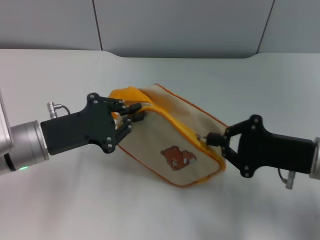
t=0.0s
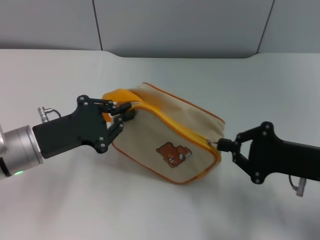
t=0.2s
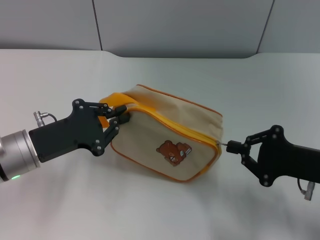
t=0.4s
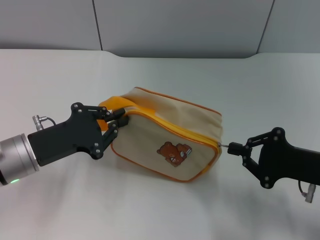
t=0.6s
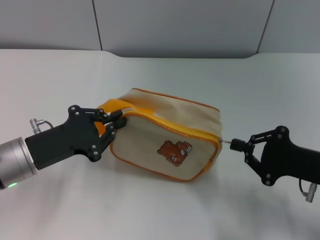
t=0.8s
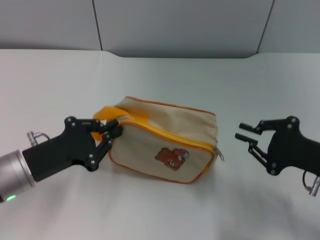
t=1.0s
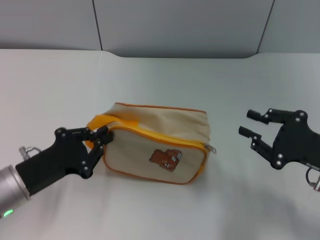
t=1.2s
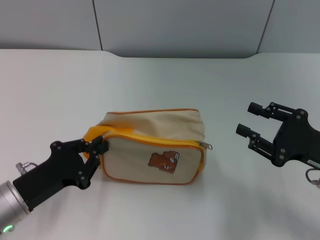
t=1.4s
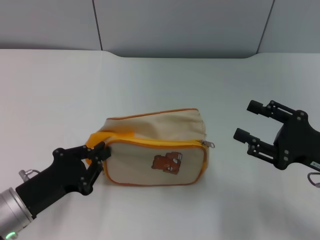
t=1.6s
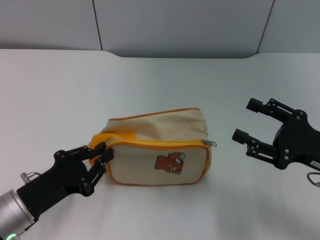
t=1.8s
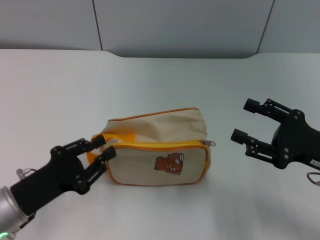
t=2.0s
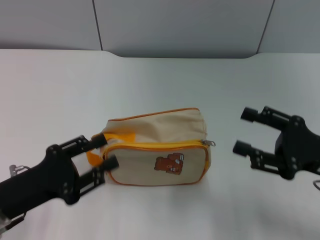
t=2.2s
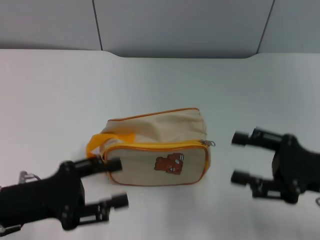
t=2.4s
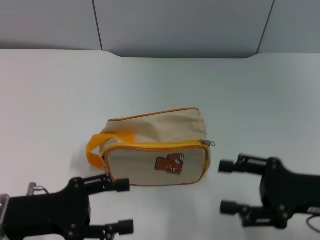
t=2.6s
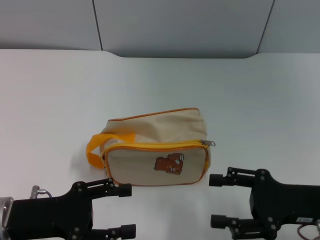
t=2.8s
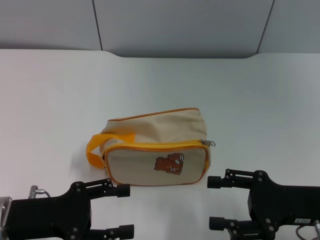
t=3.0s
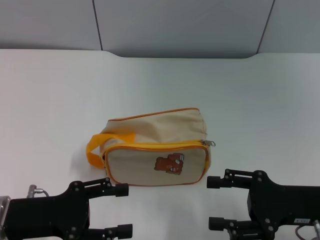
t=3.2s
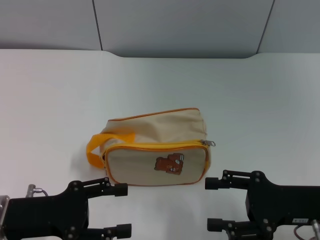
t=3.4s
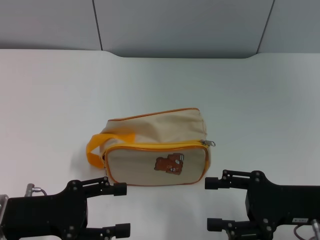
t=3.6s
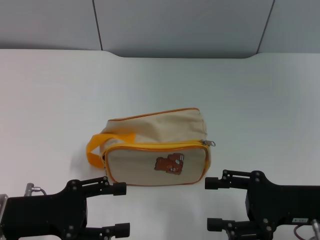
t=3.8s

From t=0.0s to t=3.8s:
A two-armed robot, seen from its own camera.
Step, from t=1.2s to t=2.2s: Place the bag on the table with left gripper.
From t=0.0s to t=1.2s: The left gripper goes approximately 5 cm backward.
From t=1.2s to t=2.6s: The right gripper opens up. Meanwhile the left gripper opens.
From t=2.6s to t=3.8s: Both grippers stay about where they are.

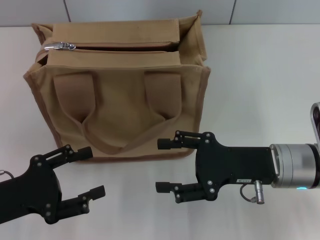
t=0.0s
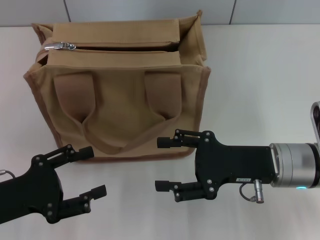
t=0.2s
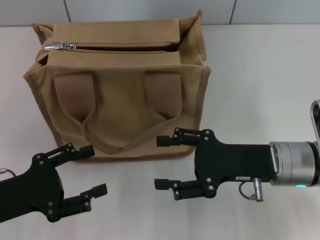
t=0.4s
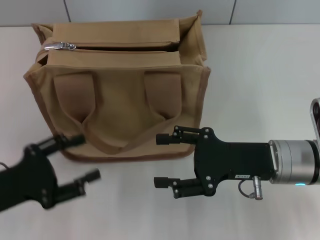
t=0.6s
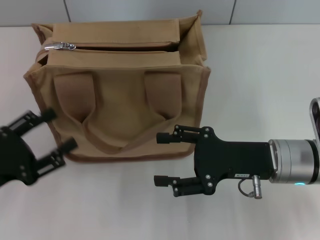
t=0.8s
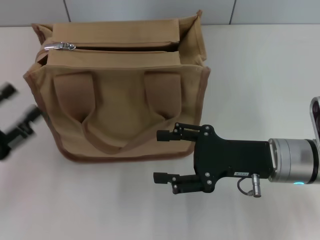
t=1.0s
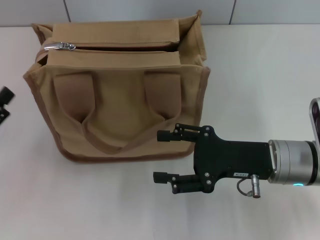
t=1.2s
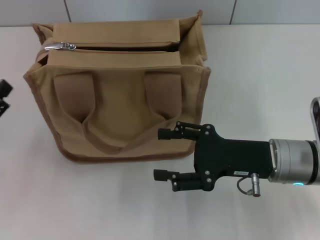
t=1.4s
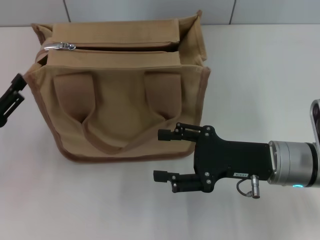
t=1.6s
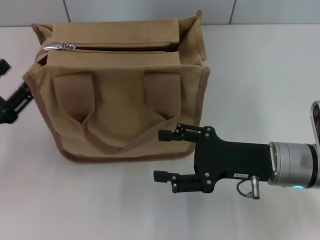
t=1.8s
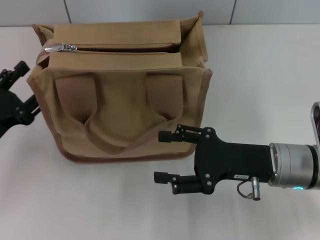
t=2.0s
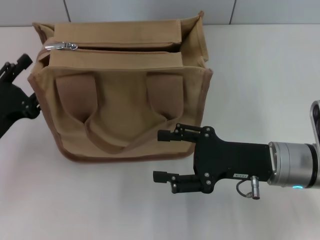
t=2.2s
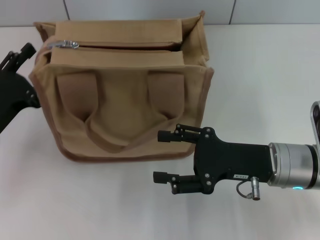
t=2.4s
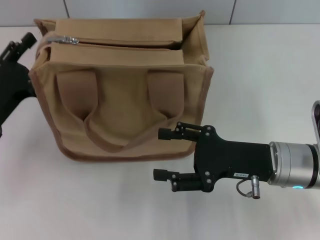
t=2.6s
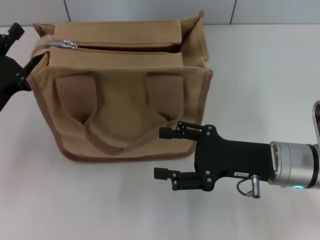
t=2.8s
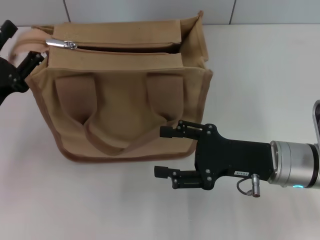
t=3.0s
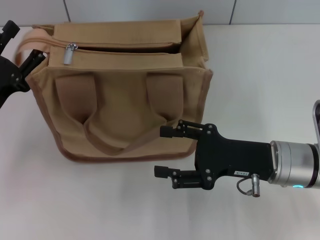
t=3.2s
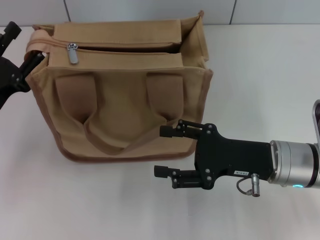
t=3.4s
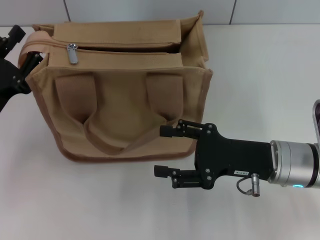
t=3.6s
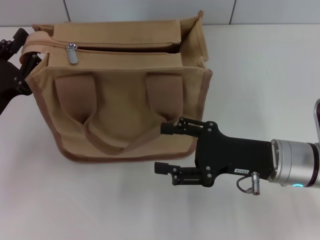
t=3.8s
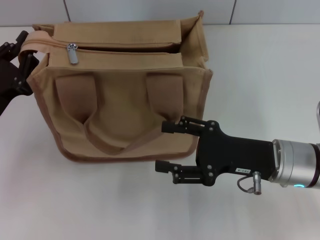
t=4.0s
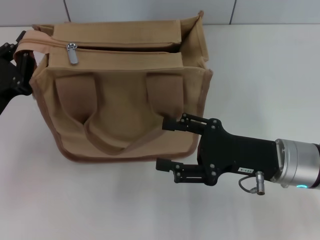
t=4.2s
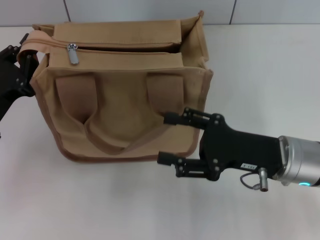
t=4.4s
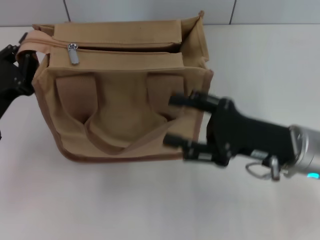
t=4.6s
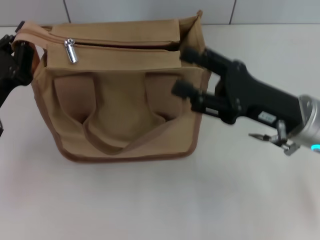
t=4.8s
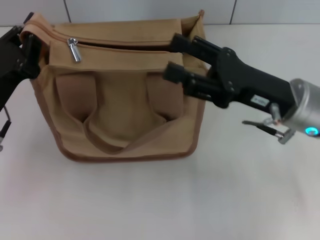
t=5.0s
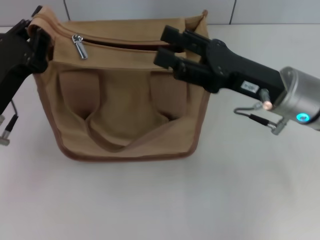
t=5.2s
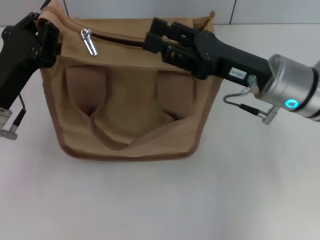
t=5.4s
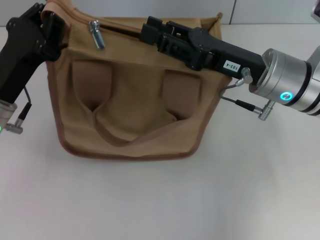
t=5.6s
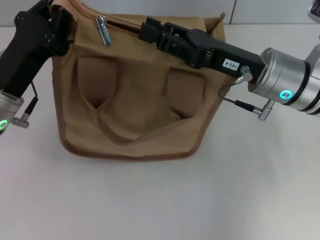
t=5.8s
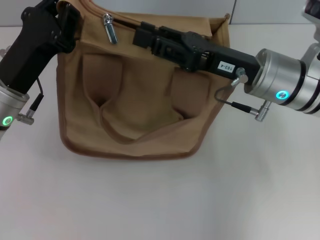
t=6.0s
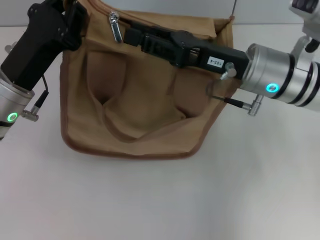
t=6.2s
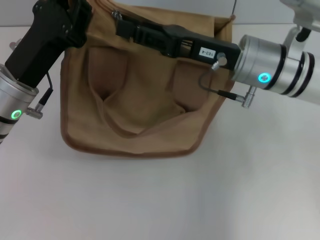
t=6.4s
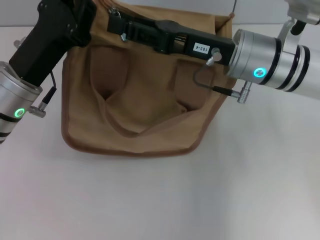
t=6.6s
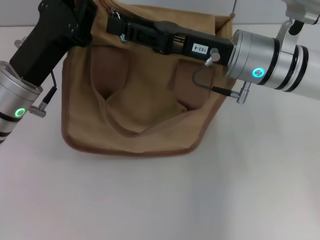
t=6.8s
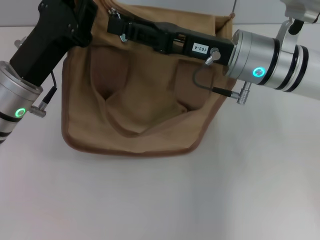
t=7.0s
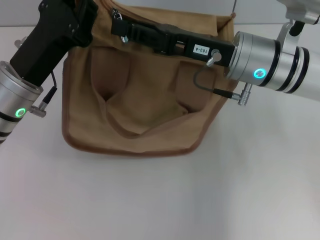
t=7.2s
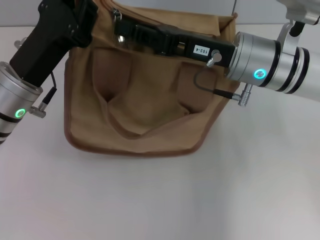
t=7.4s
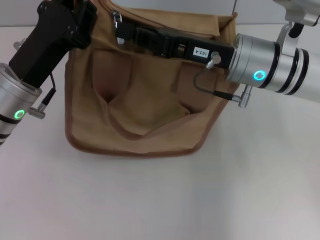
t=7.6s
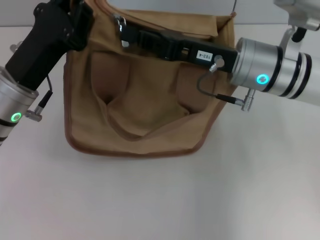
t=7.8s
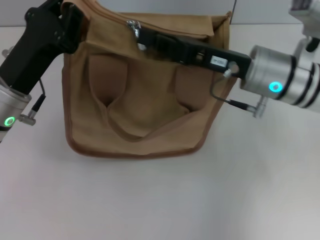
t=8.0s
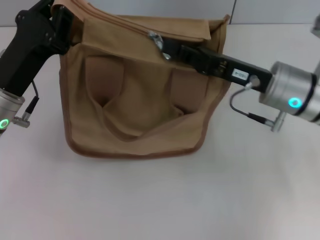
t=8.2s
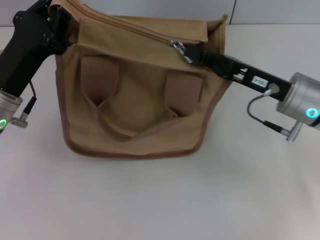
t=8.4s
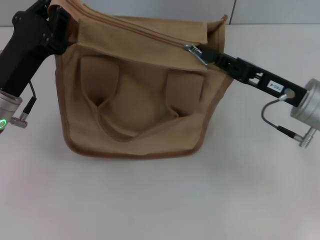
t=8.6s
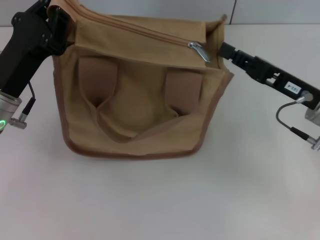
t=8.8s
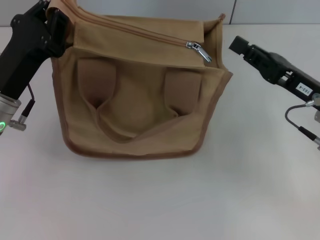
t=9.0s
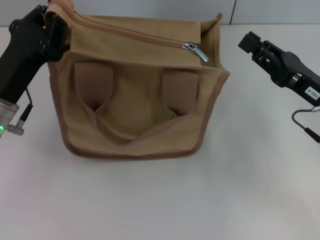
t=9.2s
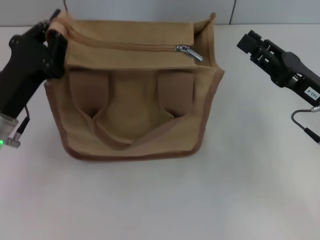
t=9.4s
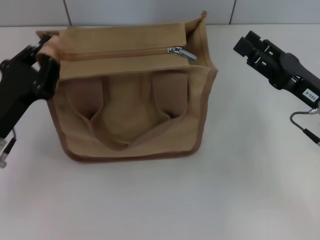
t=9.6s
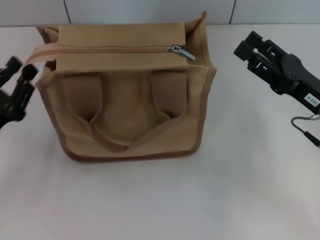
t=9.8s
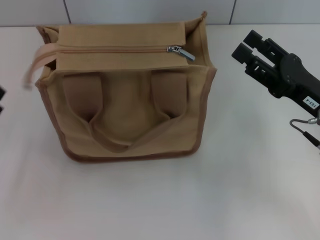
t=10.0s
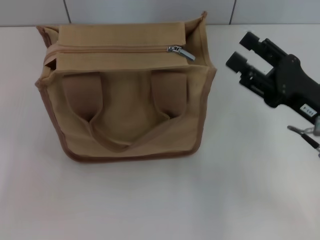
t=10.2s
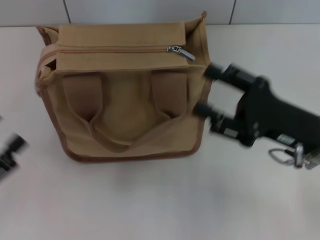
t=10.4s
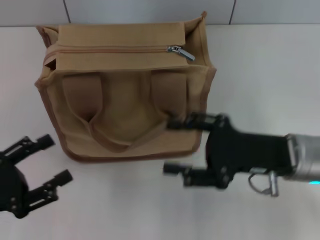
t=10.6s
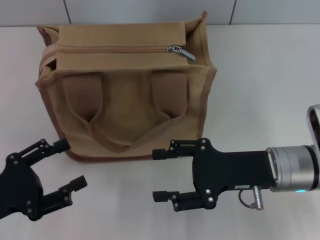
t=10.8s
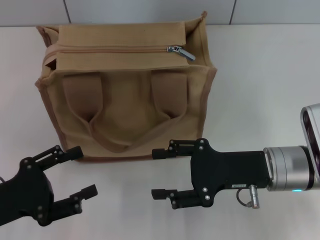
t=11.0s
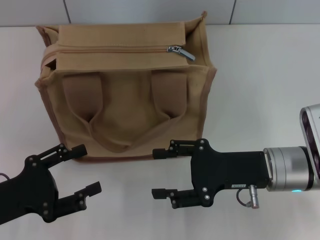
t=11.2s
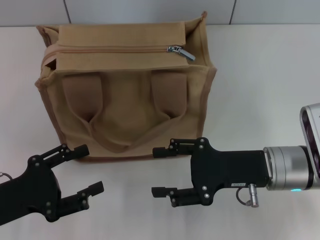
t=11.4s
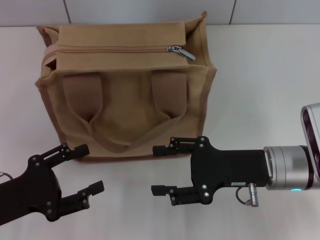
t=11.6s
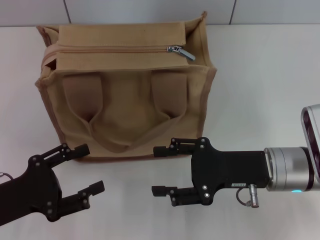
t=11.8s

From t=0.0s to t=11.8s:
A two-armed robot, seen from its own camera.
Step, from t=0.0s to t=8.6s: Pull up the zipper with your right hand.
Step, from t=8.8s to t=9.8s: Grab the zipper with your left hand.
From t=1.4s to t=3.0s: The left gripper is displaced forward by about 5 cm.
From t=3.0s to t=4.4s: The left gripper closes.
From t=4.4s to t=6.0s: The right gripper shifts approximately 10 cm forward and upward. The left gripper heads to the right, covering some 5 cm.
From t=7.4s to t=8.8s: The right gripper goes some 15 cm to the right and backward.
From t=8.8s to t=10.4s: The left gripper is displaced backward and to the left by approximately 20 cm, and opens up. Meanwhile the right gripper opens up.
From t=10.4s to t=11.8s: The left gripper heads to the right, covering about 5 cm.

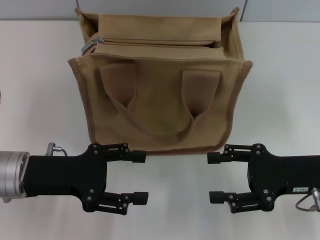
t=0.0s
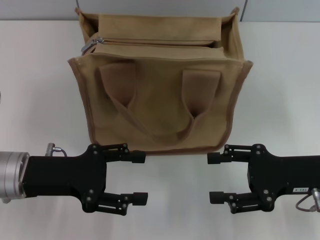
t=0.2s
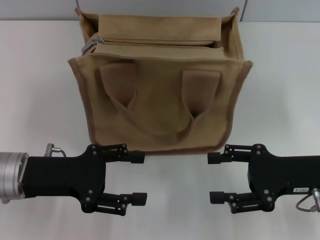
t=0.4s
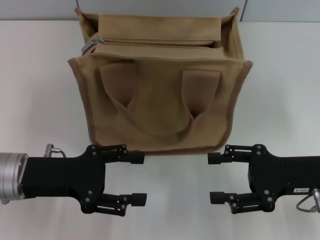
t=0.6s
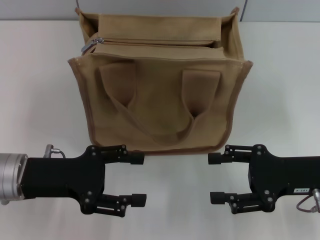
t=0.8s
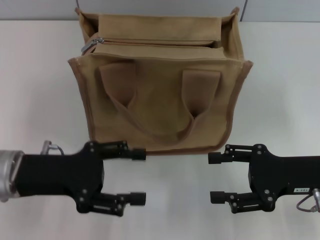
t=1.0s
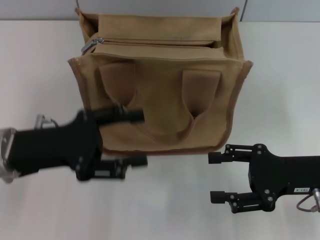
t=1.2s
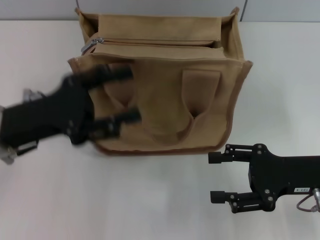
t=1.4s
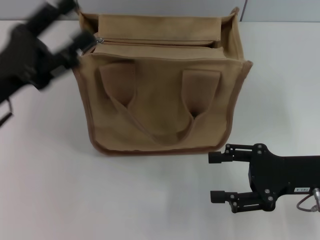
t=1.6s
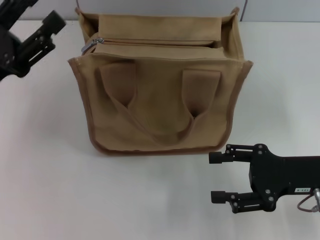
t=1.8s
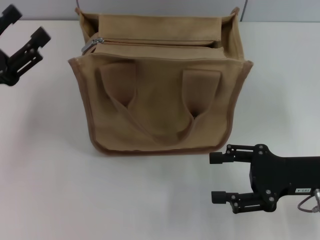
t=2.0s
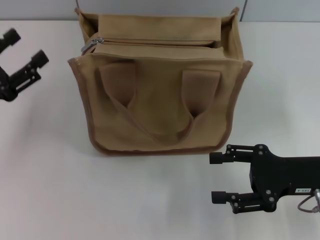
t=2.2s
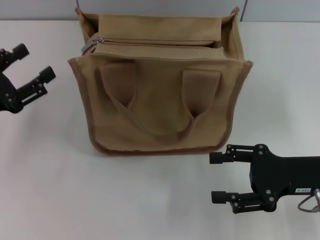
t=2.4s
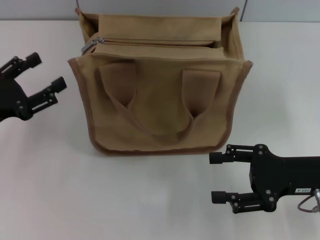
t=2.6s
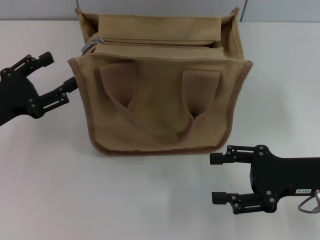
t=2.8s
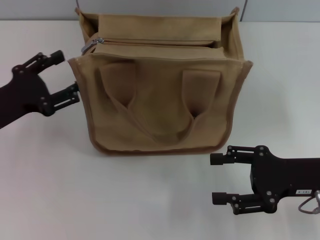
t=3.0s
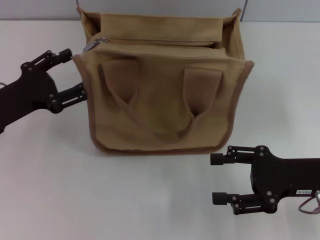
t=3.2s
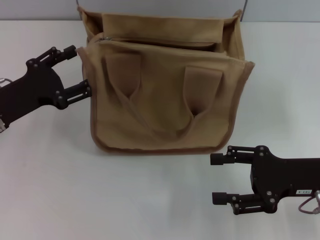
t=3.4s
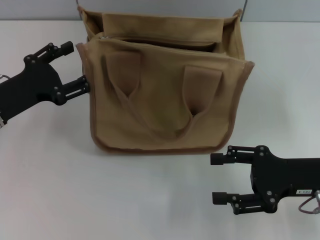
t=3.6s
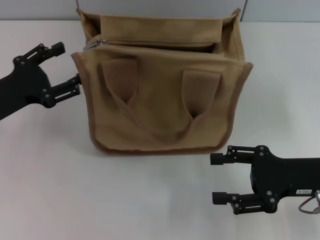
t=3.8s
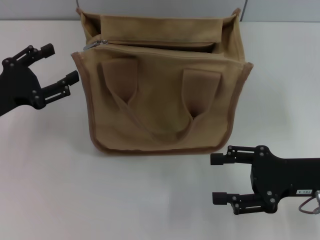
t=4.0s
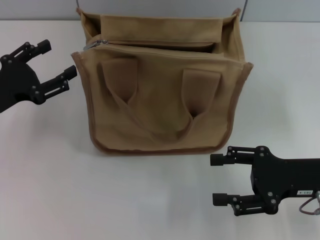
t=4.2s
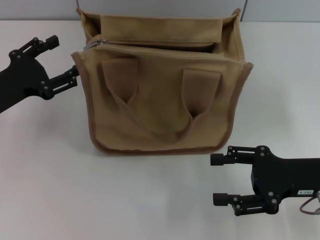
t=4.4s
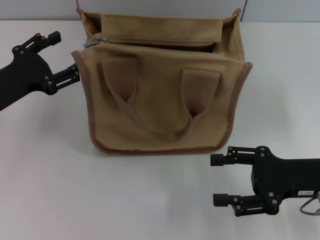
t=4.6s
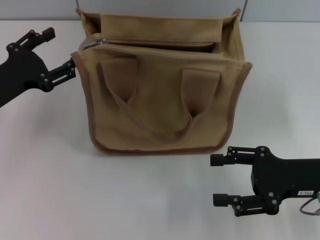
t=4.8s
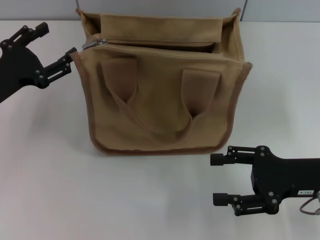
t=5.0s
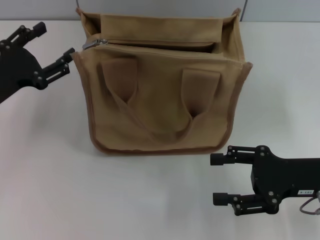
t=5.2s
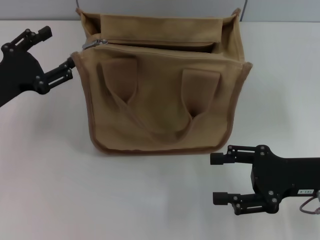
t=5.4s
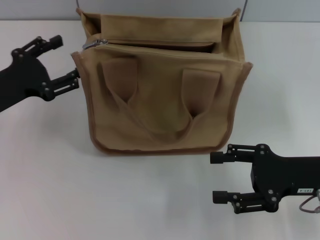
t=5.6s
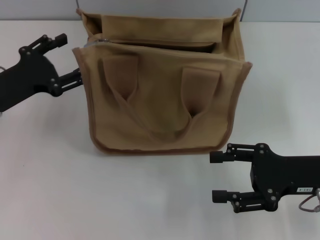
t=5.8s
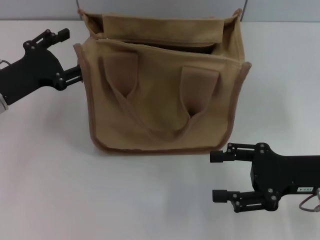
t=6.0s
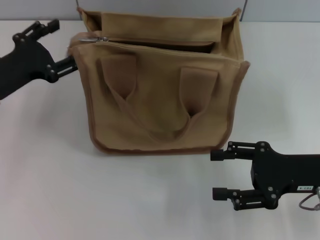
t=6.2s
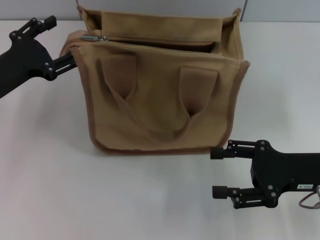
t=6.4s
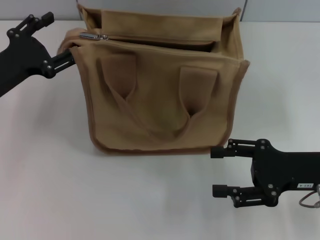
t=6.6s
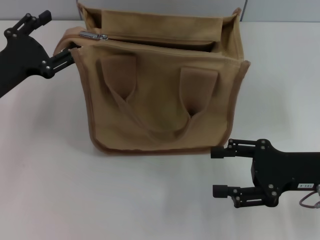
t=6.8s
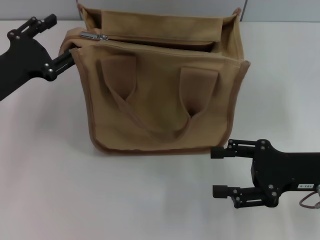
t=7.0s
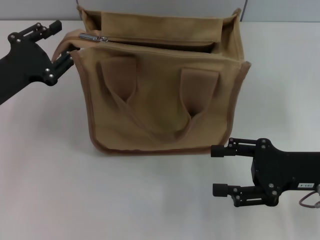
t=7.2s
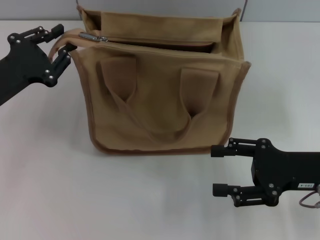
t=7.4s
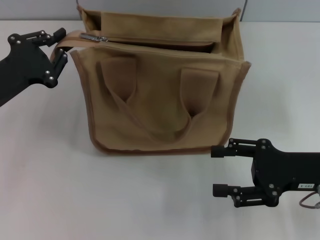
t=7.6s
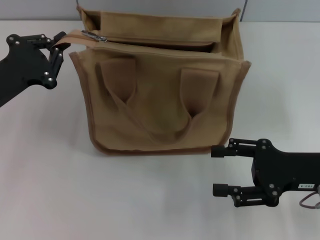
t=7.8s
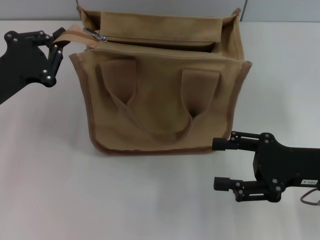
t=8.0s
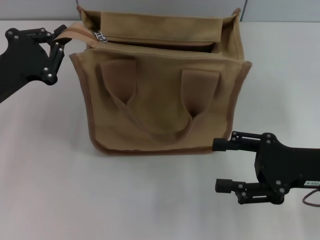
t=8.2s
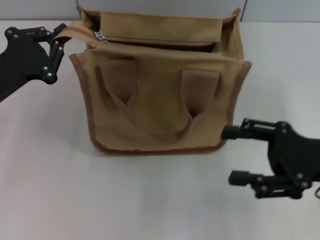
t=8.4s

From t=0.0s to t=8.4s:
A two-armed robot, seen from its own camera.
From t=1.4s to t=2.8s: The left gripper is displaced to the left by approximately 5 cm.
From t=2.8s to t=7.0s: The grippers make only small movements.
From t=7.0s to t=8.4s: The left gripper closes its fingers.
